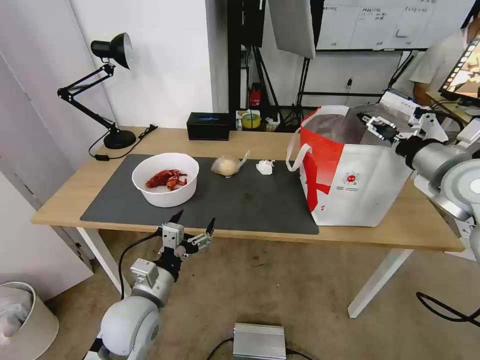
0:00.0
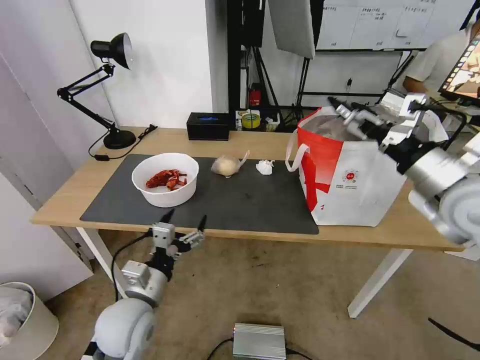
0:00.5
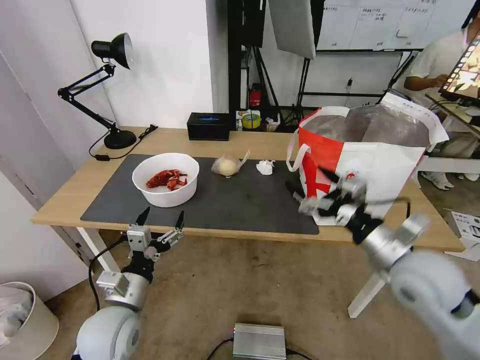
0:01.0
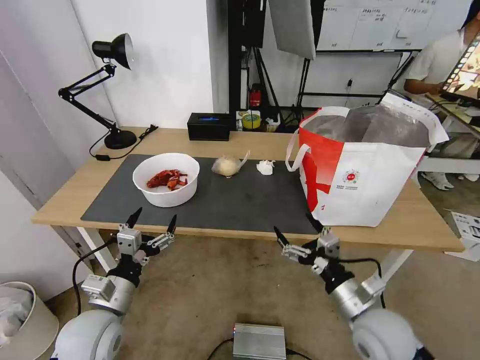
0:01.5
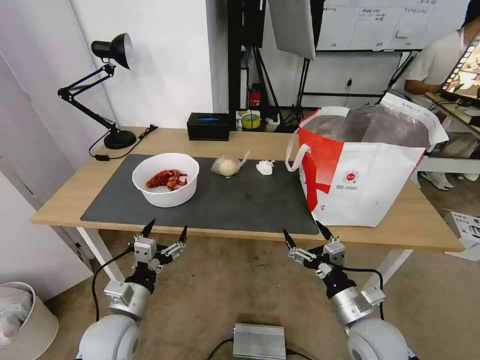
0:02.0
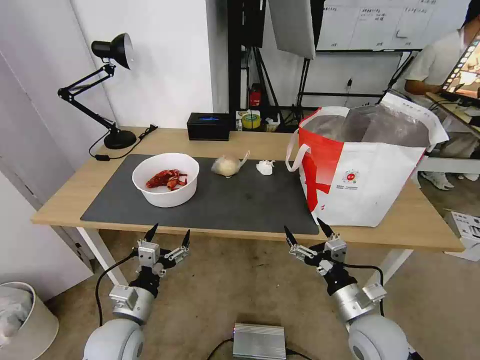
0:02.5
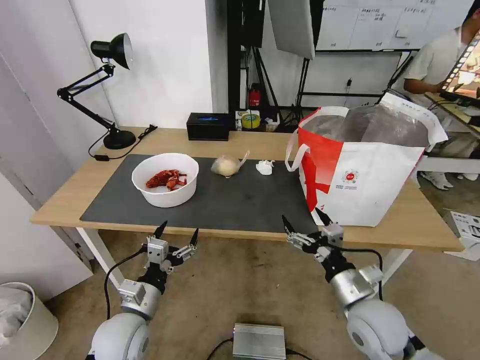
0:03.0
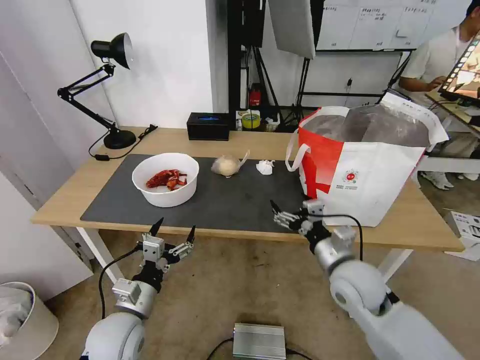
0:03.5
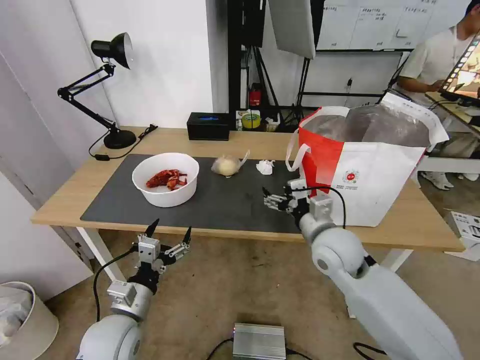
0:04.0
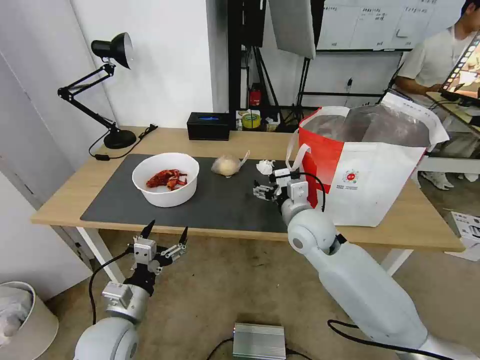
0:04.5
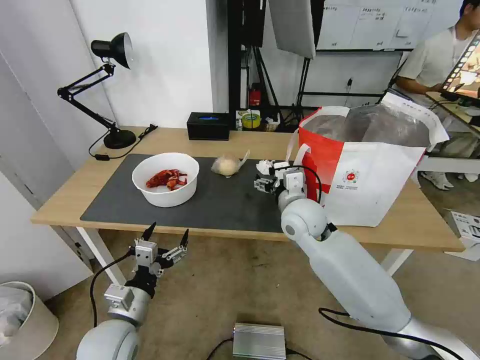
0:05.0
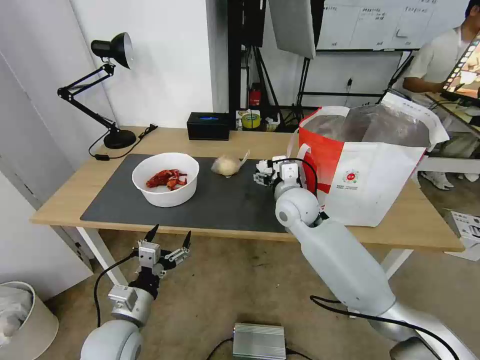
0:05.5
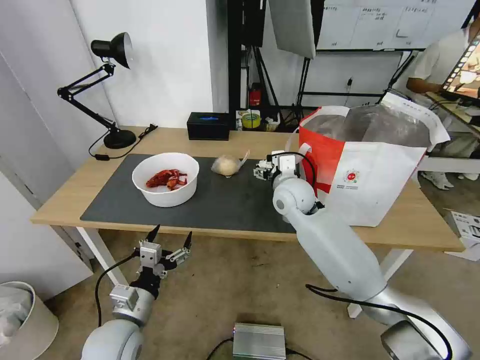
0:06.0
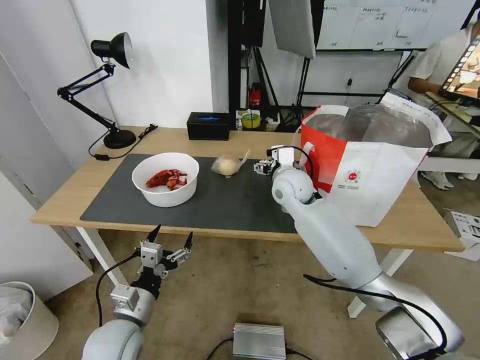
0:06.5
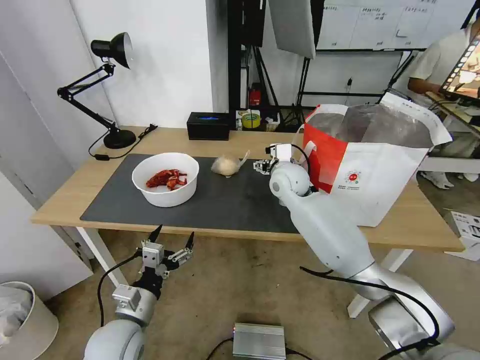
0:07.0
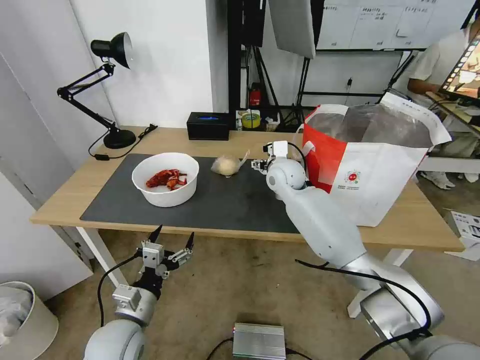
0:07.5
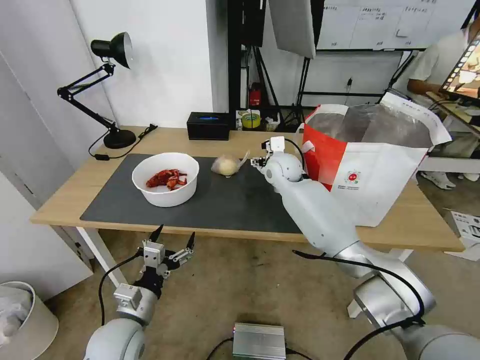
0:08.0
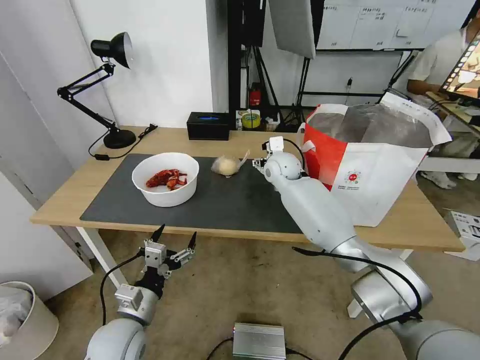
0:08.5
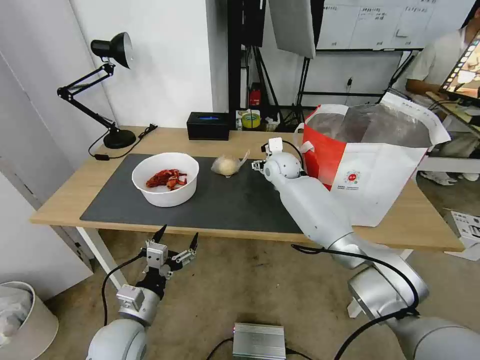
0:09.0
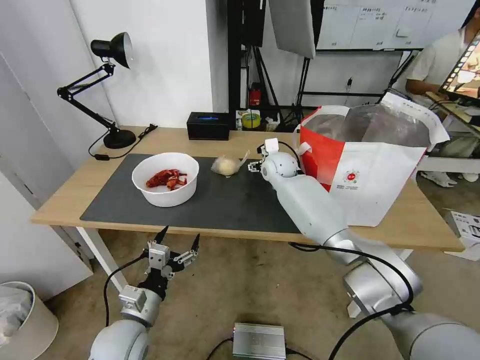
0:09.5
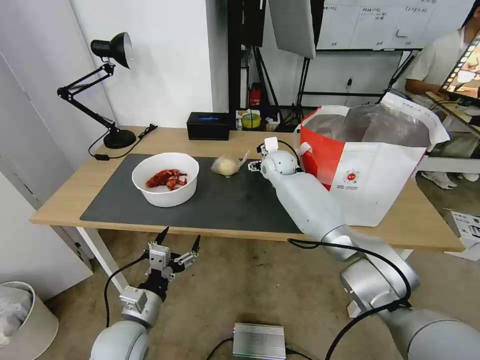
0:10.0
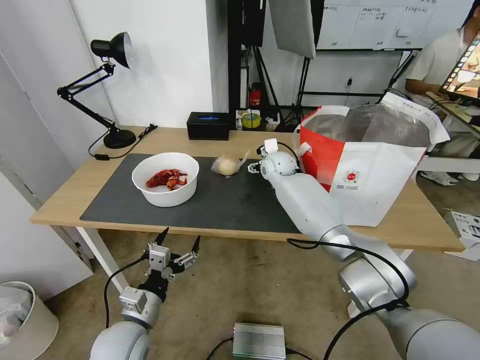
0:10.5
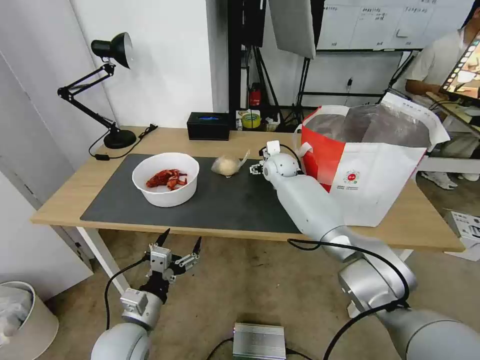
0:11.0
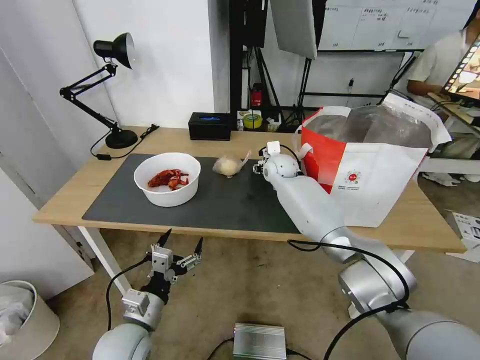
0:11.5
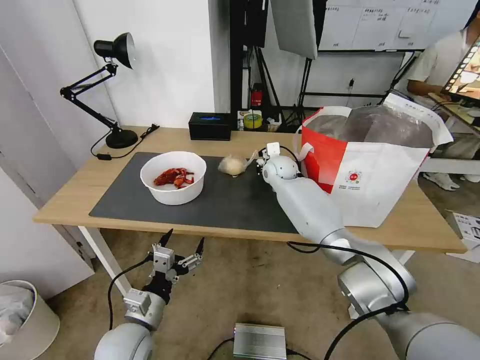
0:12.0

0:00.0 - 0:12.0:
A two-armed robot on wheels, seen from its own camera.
Task of the whole recording: Pick up the trash from the table and place it into the takeout bag.
0:00.0 - 0:02.0: The left gripper changes place by roughly 5 cm; the right gripper is displaced downward, backward and to the left by approximately 35 cm.
0:02.0 - 0:04.0: The right gripper goes some 20 cm forward, upward and to the left.
0:04.0 - 0:06.0: The right gripper goes about 15 cm forward and to the left.
0:06.0 - 0:08.0: The right gripper heads forward, covering approximately 10 cm.
0:08.0 - 0:10.0: The grippers stay close to where they were, moving slightly.
0:10.0 - 0:12.0: The right gripper closes up.

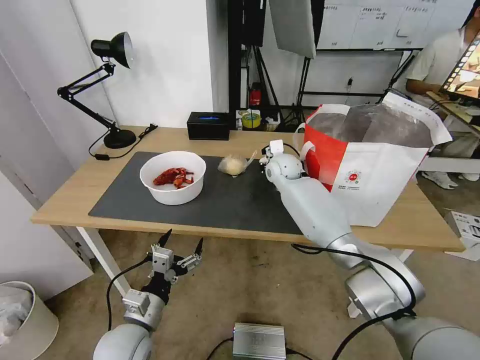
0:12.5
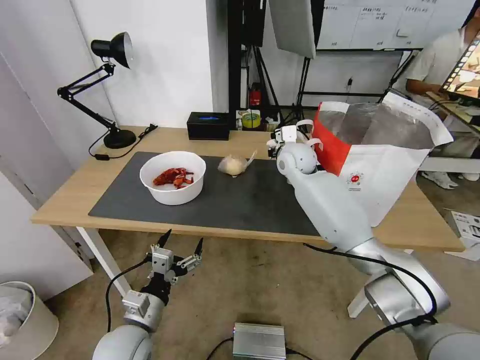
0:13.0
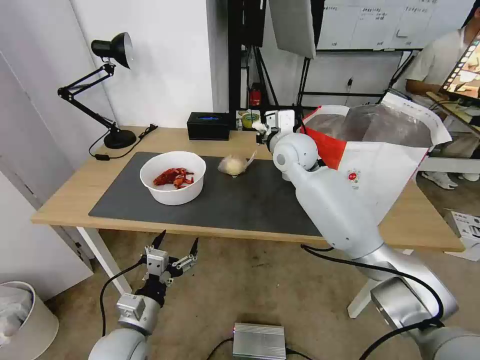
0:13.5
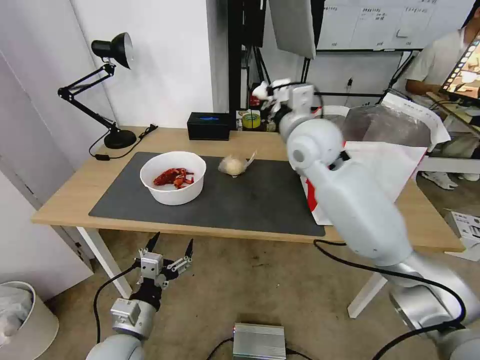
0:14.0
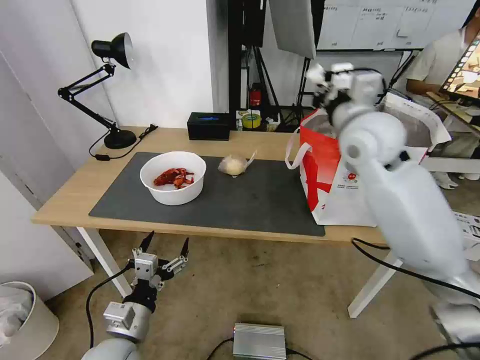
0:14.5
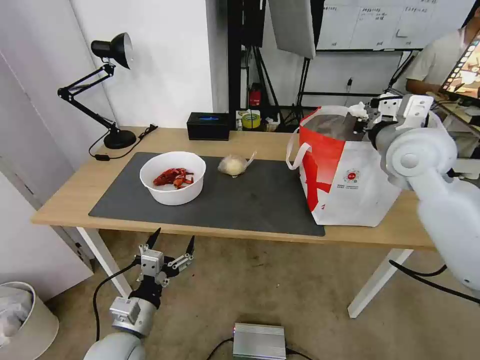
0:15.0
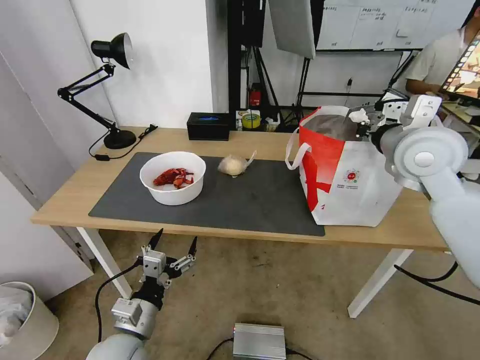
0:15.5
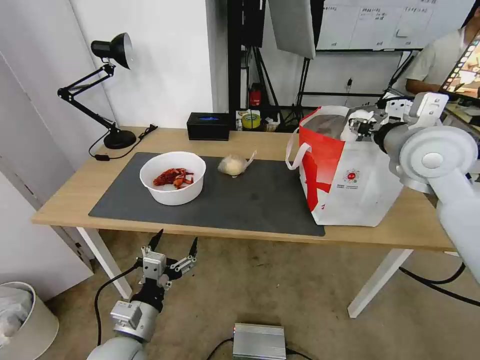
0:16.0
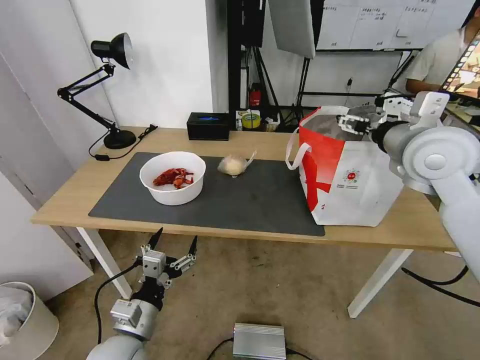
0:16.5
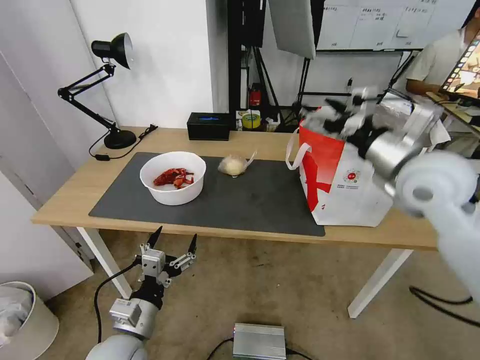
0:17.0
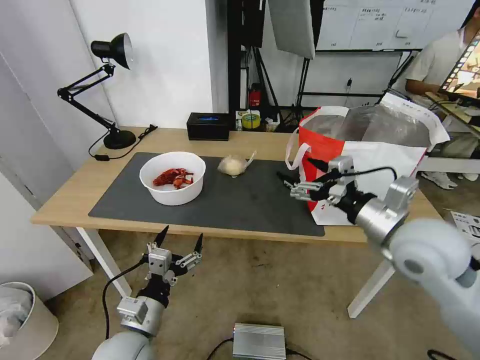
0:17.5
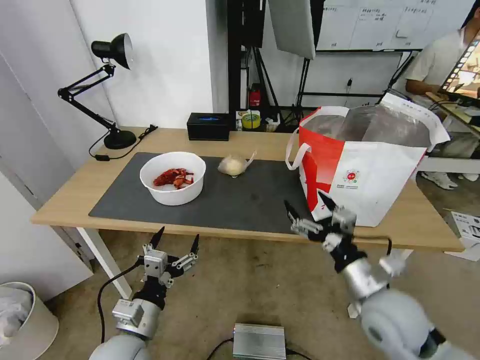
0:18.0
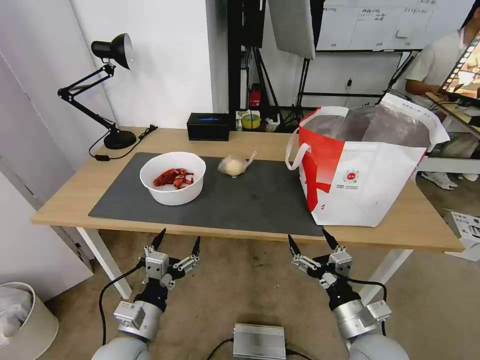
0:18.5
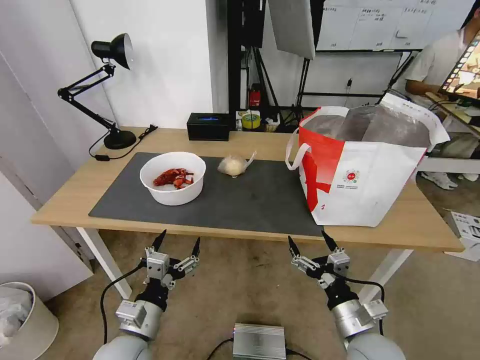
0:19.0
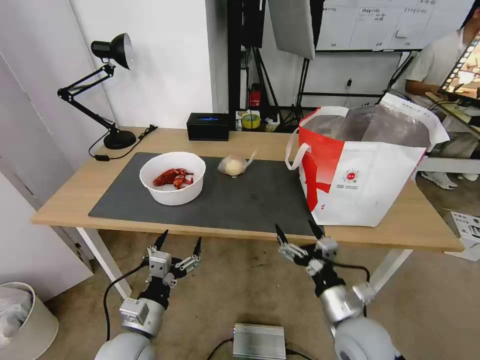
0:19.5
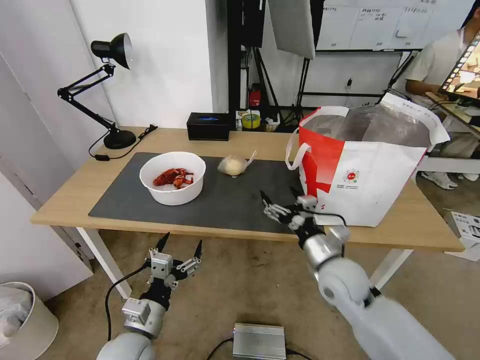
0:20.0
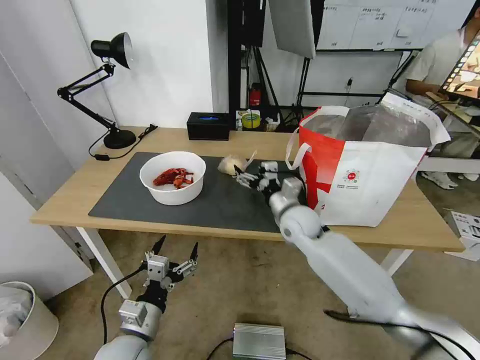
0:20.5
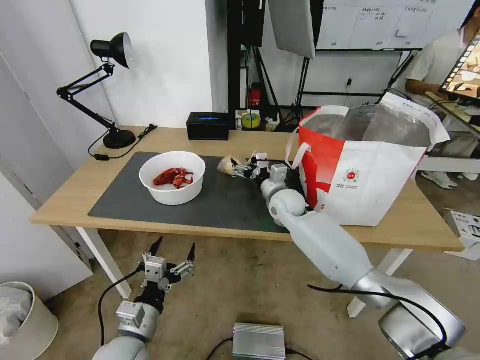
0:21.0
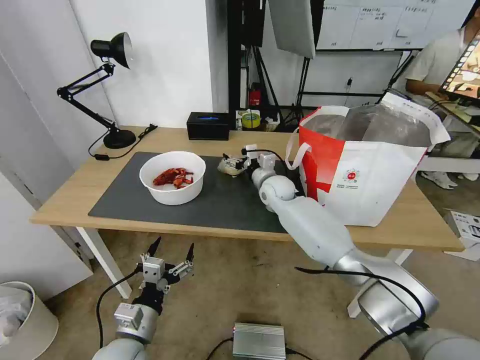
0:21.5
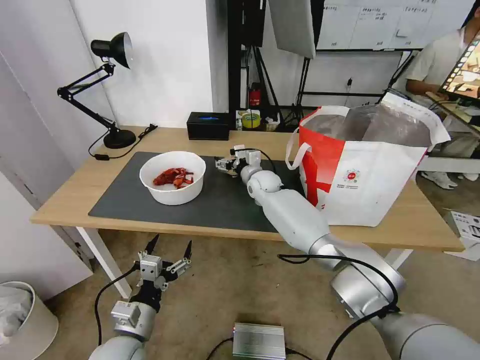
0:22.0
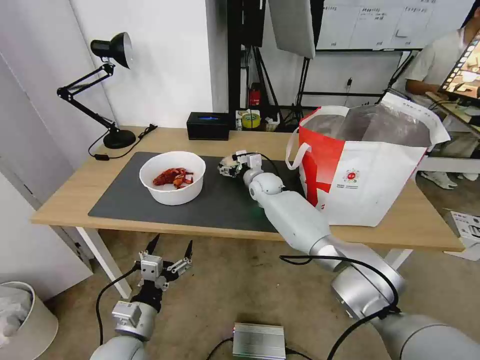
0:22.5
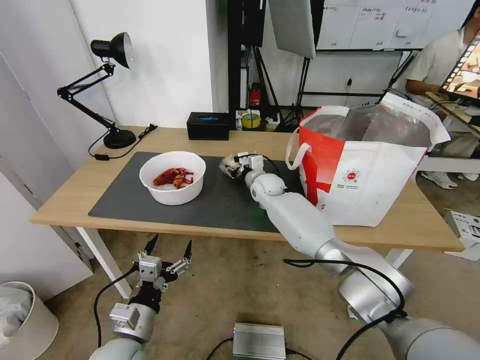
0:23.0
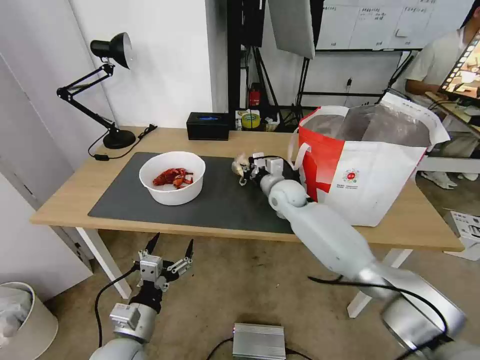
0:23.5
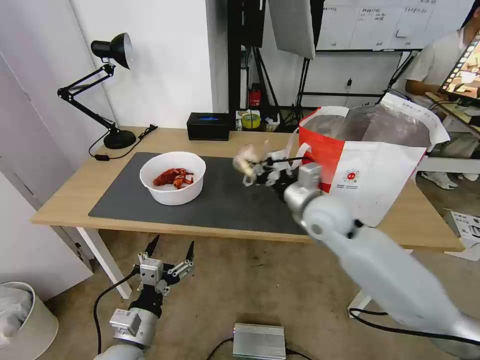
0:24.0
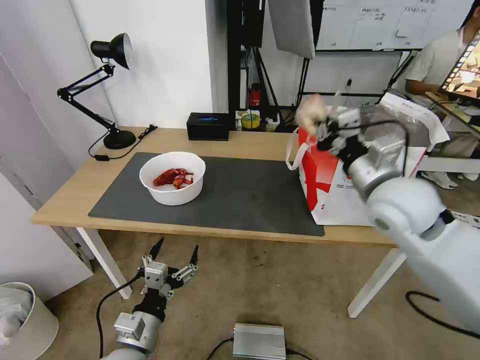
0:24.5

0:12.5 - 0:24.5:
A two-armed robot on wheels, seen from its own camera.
Task of the whole recording: Pick up the trash from the table and place it into the takeout bag.
0:12.5 - 0:14.5: The right gripper goes some 30 cm upward, backward and to the right.
0:14.5 - 0:16.5: The right gripper heads to the right, covering about 10 cm, and opens its fingers.
0:16.5 - 0:18.5: The right gripper travels downward and backward by roughly 40 cm.
0:18.5 - 0:20.5: The right gripper is displaced forward by roughly 25 cm.
0:20.5 - 0:22.5: The right gripper goes some 20 cm forward and to the left.
0:22.5 - 0:24.5: The right gripper heads backward, upward and to the right, covering roughly 35 cm, and closes.

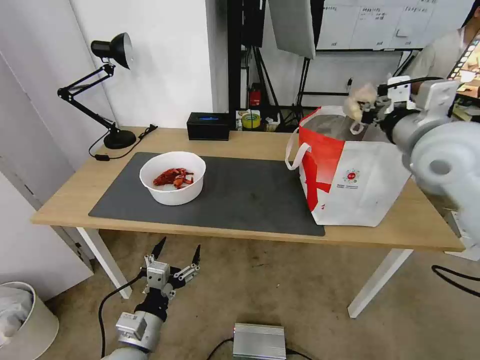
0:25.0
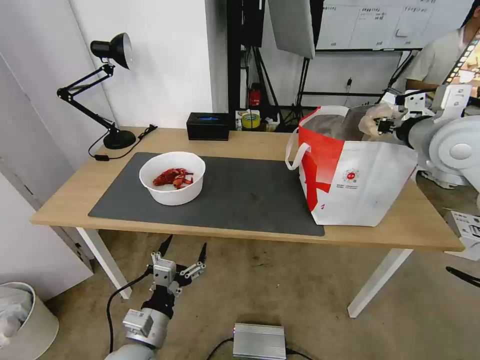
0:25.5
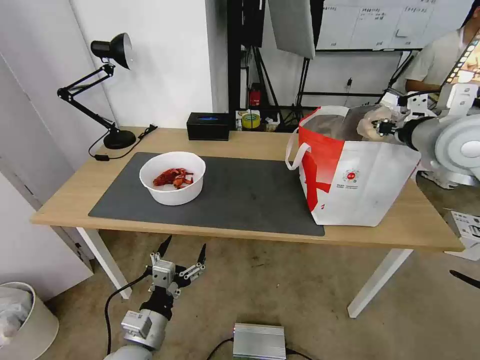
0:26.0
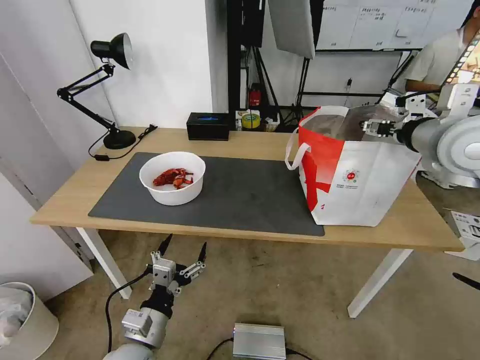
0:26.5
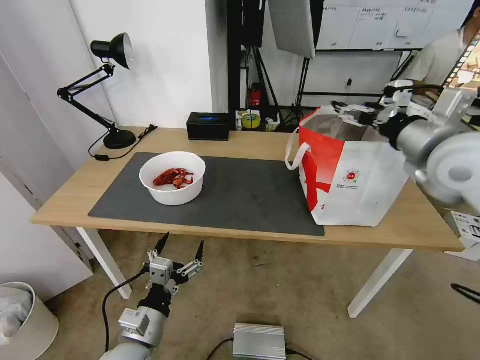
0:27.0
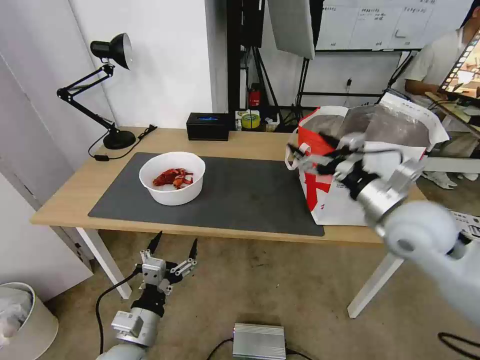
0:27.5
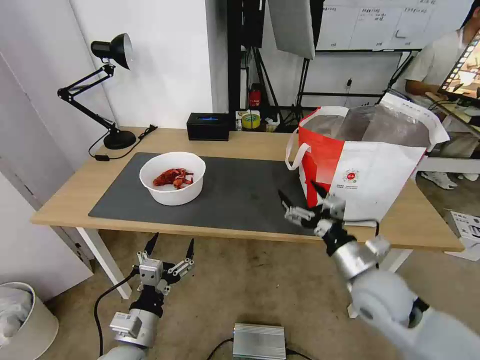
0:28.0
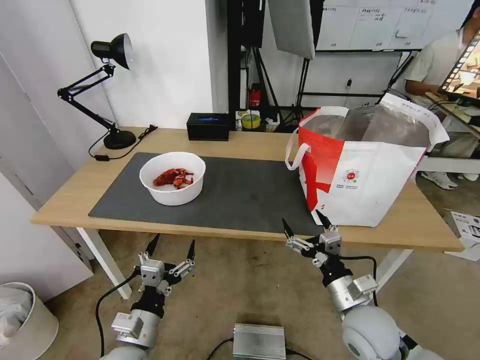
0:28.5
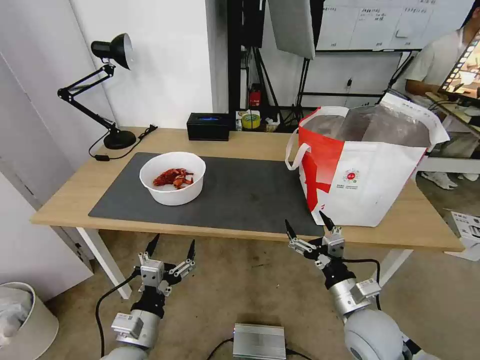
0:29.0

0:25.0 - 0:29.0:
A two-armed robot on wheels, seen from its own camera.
Task of the whole recording: Pick up the trash from the table and place it into the takeout bag.
0:25.0 - 0:27.0: The right gripper opens its fingers.
0:27.0 - 0:29.0: The right gripper moves downward and backward, about 35 cm.
